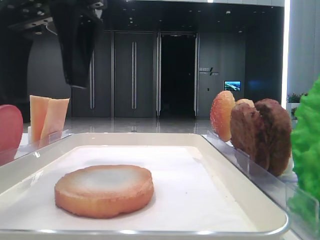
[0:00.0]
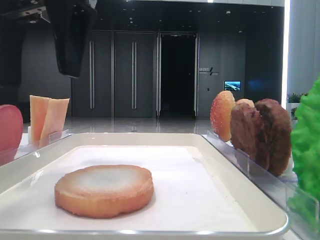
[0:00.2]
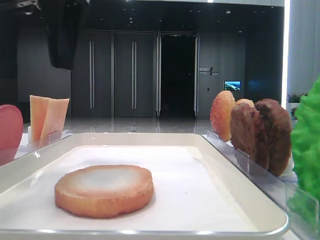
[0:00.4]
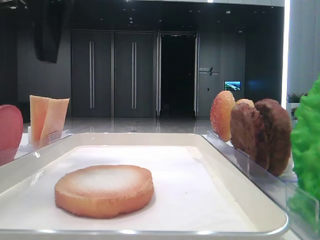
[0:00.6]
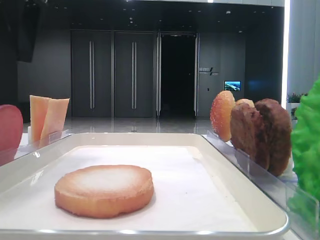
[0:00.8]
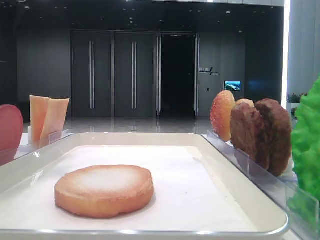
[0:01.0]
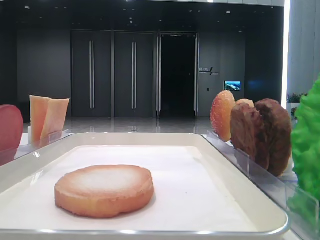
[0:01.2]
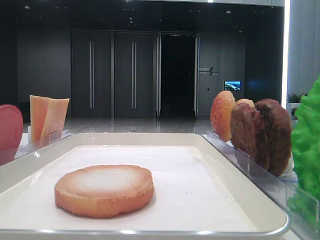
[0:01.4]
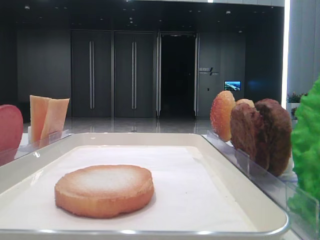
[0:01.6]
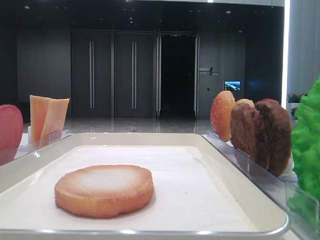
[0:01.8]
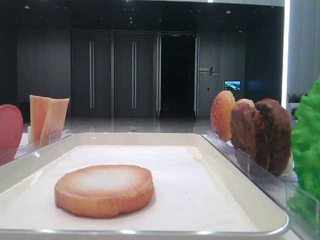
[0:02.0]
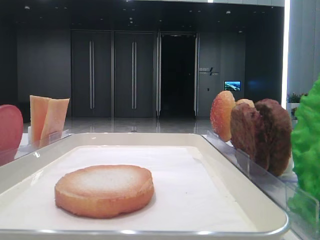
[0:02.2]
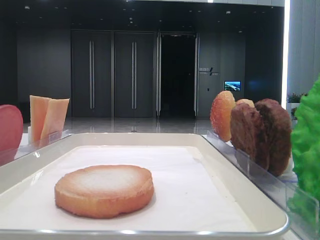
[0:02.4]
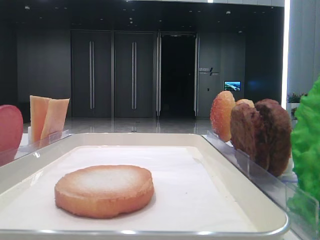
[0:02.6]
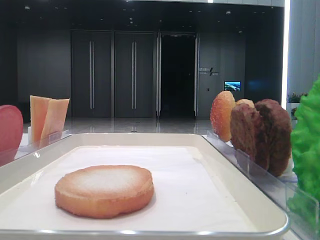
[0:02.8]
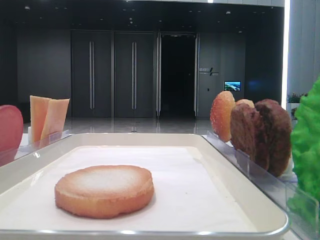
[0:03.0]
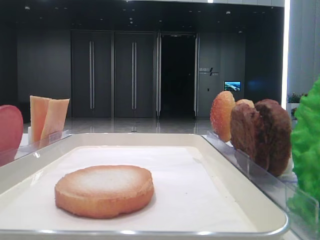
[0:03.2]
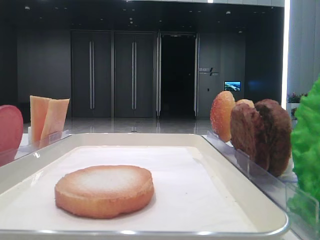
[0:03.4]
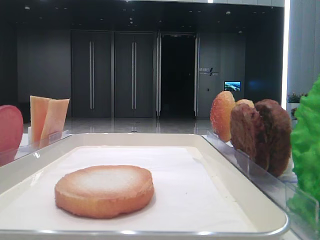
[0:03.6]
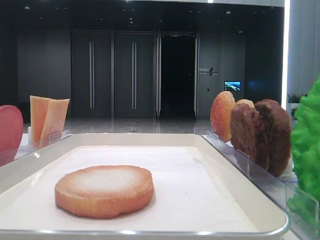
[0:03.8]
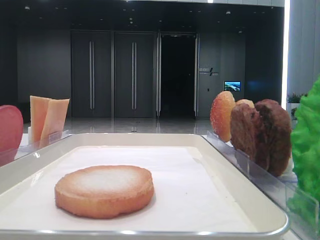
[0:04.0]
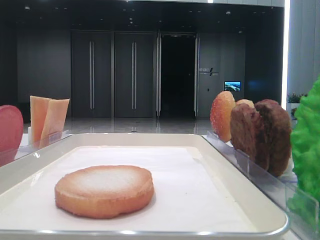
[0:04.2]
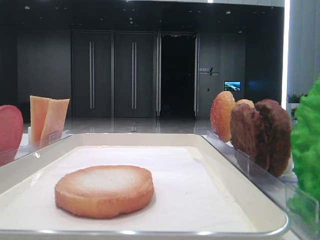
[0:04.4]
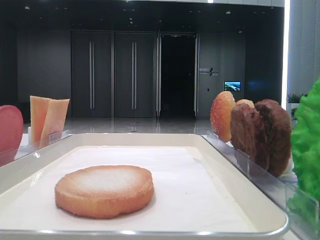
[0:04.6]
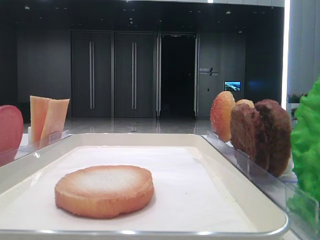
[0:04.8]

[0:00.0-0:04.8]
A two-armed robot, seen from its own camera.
0:00.0 to 0:01.6: The left gripper shifts roughly 20 cm to the left.

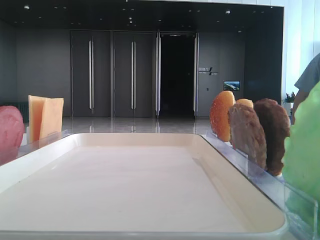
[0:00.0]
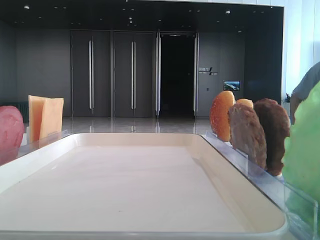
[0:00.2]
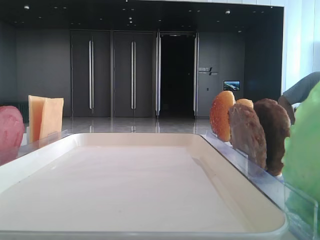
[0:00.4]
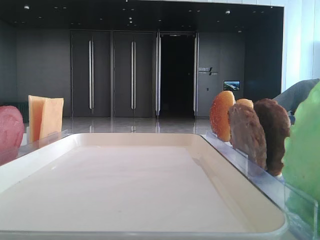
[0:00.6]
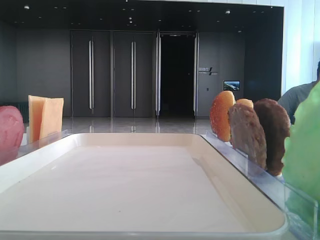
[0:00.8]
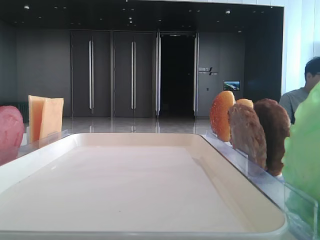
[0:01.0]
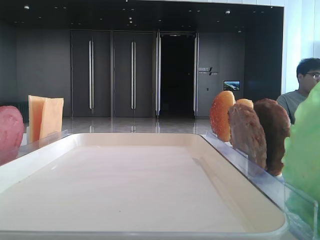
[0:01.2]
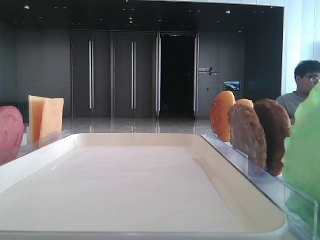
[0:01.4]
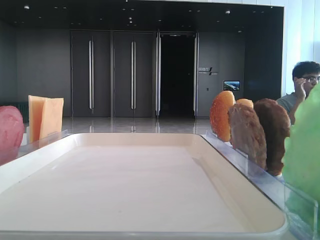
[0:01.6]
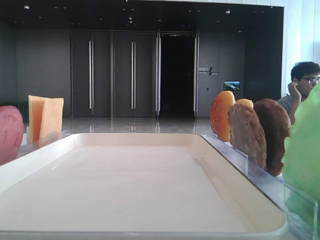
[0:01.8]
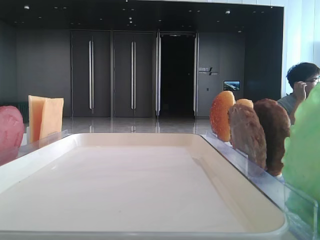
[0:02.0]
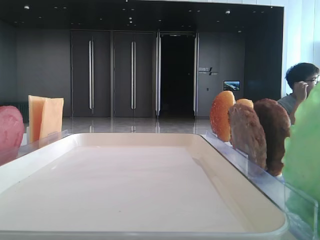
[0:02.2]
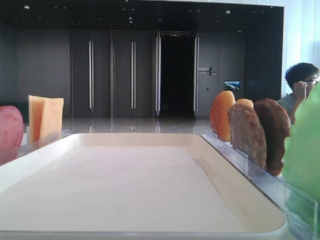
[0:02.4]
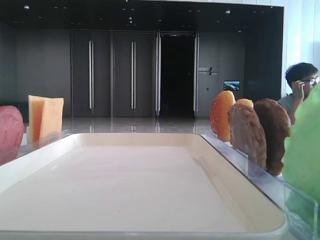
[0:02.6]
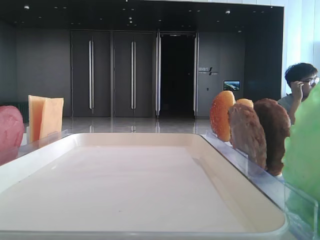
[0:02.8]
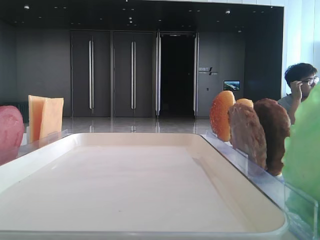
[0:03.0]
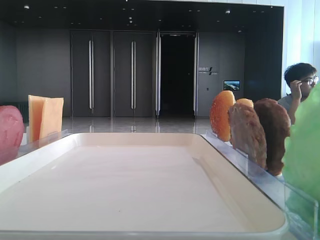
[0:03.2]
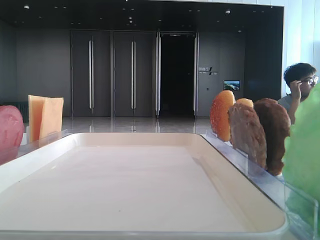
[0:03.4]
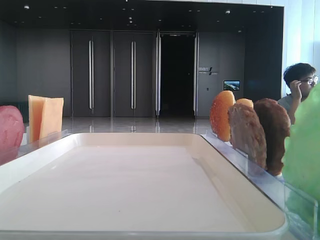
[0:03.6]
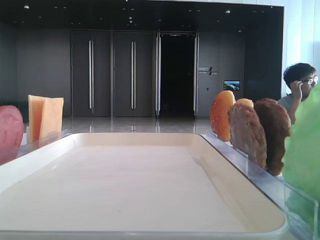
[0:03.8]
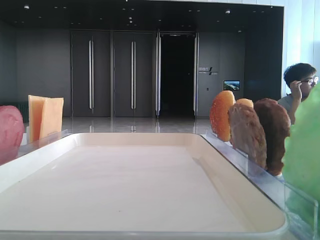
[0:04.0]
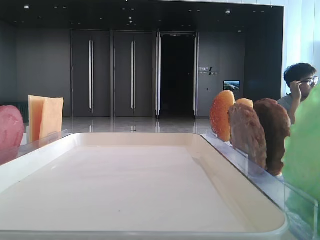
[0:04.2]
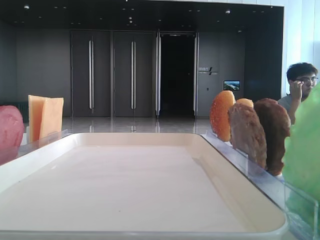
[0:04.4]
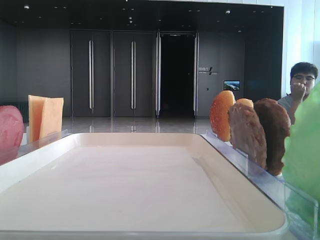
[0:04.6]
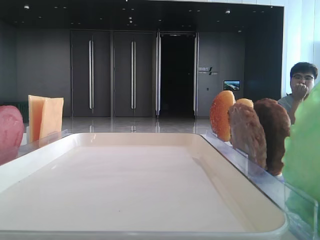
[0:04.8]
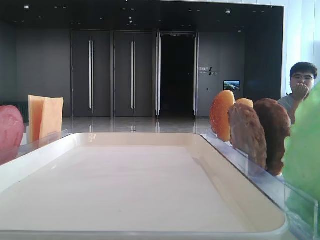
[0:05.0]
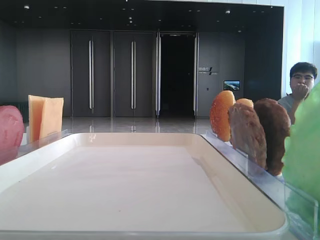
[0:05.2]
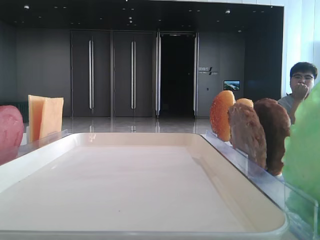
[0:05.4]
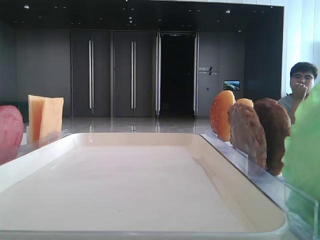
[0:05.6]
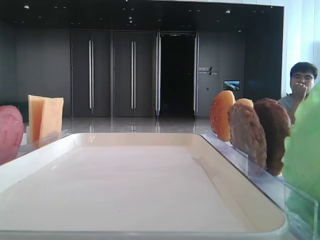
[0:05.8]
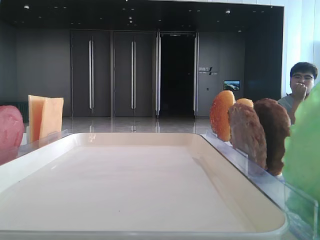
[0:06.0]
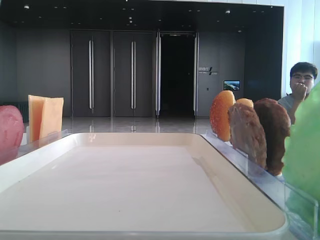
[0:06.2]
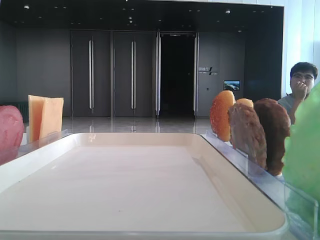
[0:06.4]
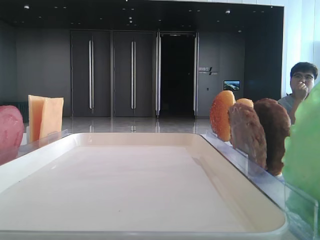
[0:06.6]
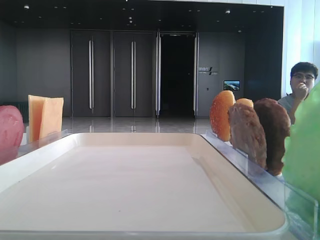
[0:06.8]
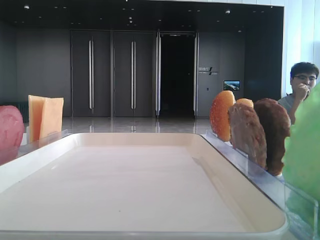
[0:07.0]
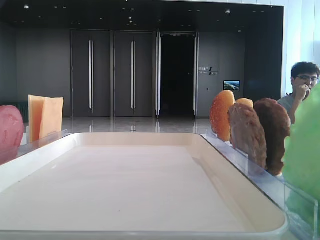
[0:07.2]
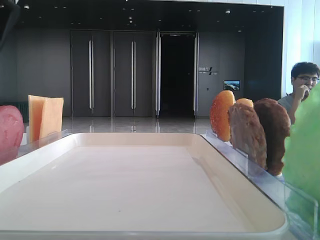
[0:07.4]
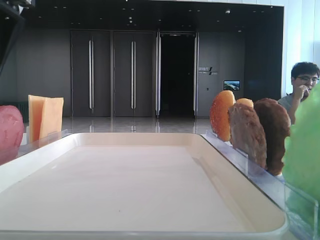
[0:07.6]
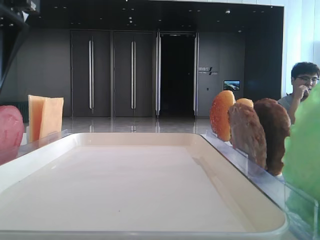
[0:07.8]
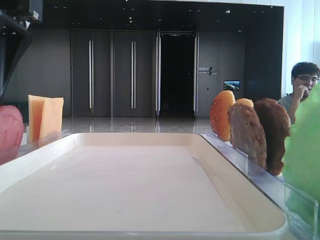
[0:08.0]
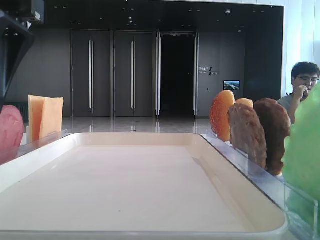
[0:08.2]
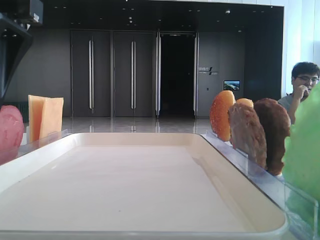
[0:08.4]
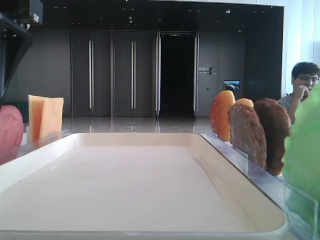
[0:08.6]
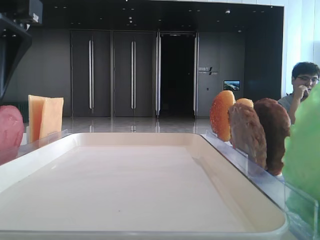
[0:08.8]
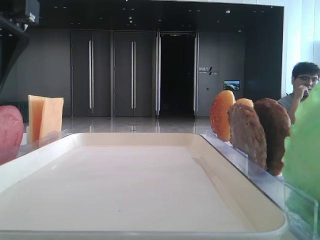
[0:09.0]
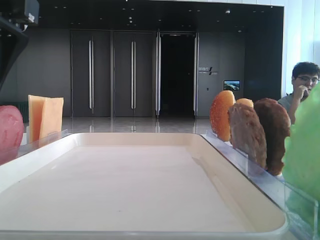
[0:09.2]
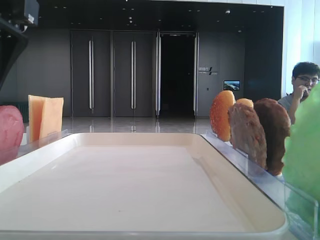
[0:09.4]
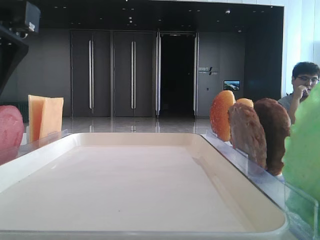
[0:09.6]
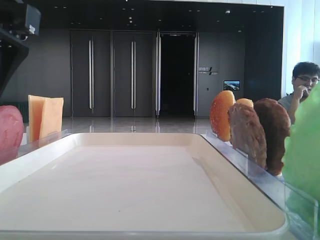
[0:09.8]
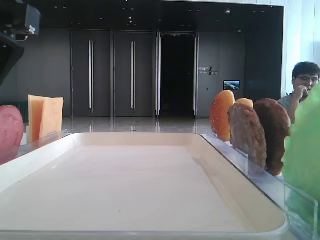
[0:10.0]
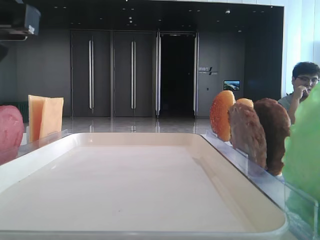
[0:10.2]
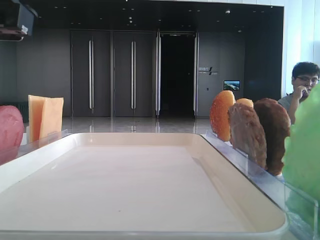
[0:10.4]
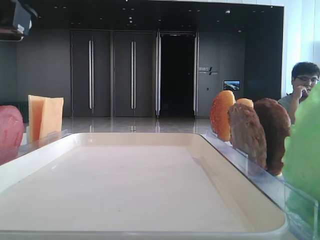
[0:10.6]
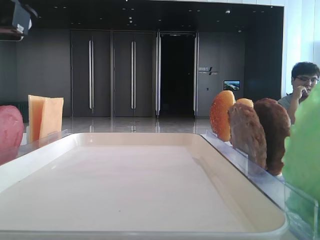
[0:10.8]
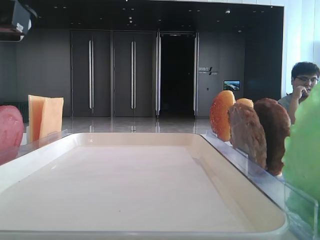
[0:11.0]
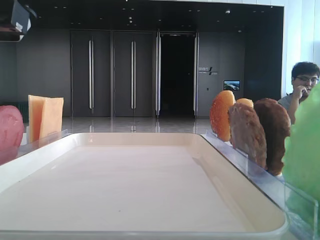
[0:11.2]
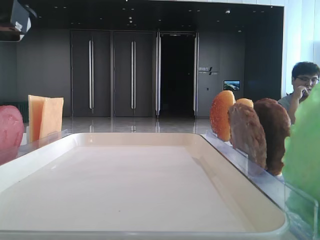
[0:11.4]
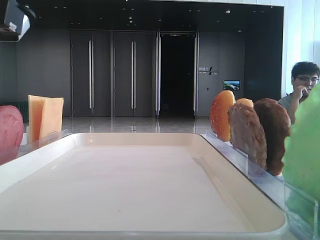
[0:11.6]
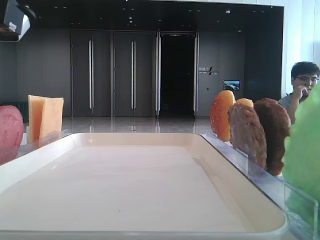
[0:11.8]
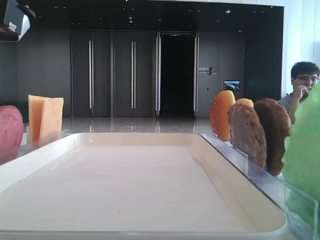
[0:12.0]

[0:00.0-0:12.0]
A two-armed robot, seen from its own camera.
Step, 0:00.0 to 0:12.0: Pick up the bottom bread with the left hand.
0:07.6 to 0:09.0: The grippers make only small movements.
0:09.0 to 0:10.4: The left gripper closes up.
0:10.4 to 0:12.0: Both grippers stay put.

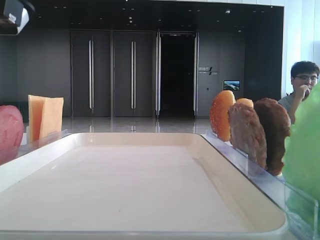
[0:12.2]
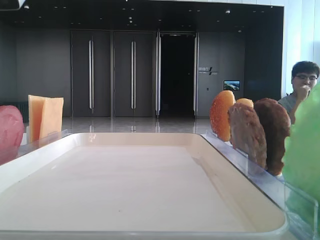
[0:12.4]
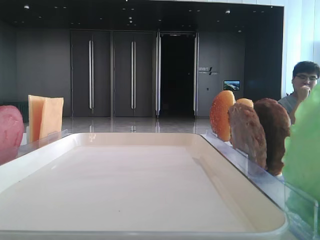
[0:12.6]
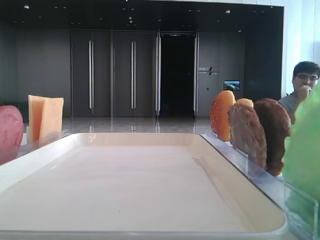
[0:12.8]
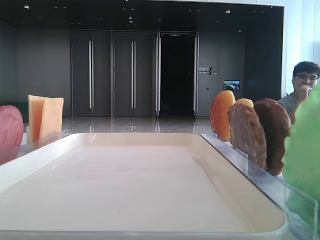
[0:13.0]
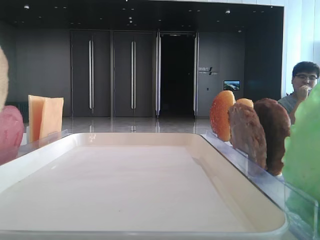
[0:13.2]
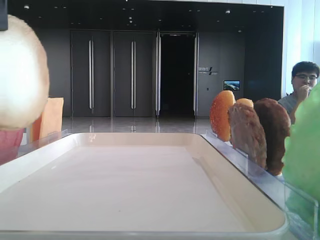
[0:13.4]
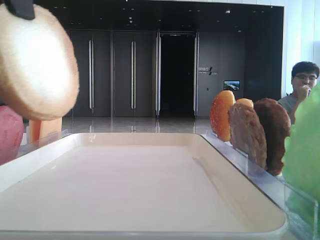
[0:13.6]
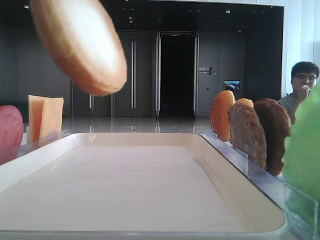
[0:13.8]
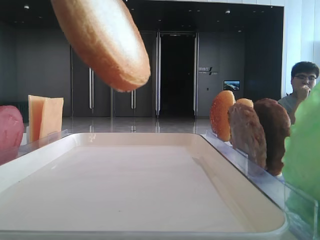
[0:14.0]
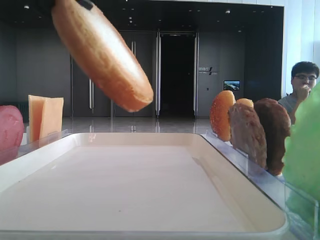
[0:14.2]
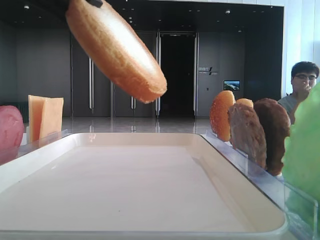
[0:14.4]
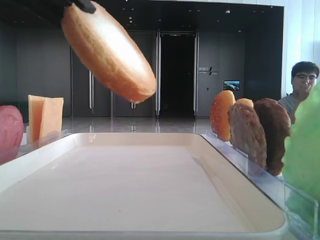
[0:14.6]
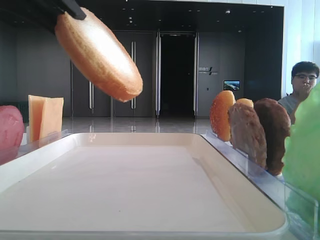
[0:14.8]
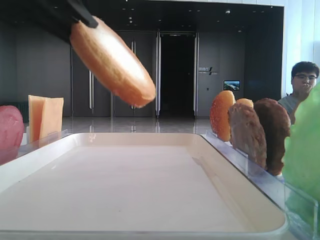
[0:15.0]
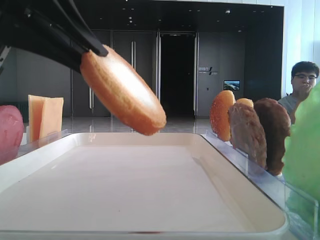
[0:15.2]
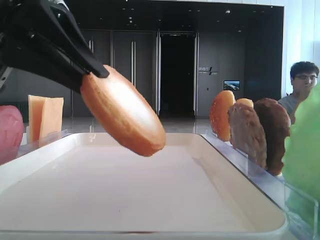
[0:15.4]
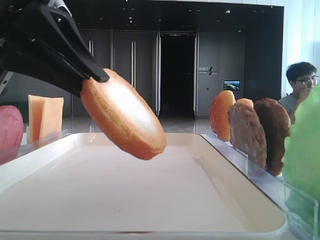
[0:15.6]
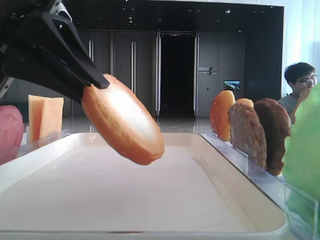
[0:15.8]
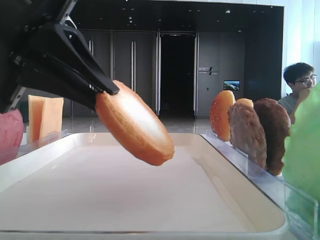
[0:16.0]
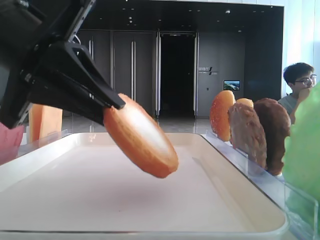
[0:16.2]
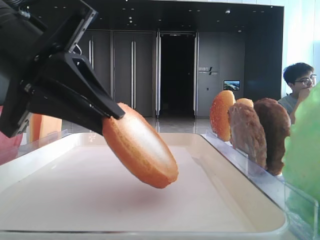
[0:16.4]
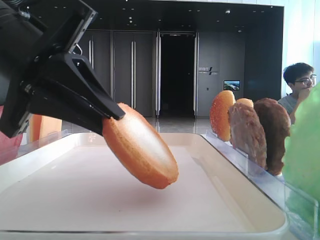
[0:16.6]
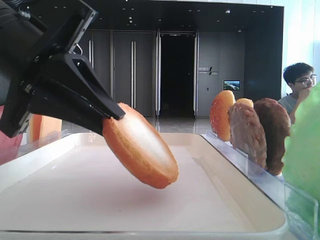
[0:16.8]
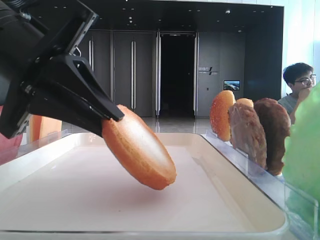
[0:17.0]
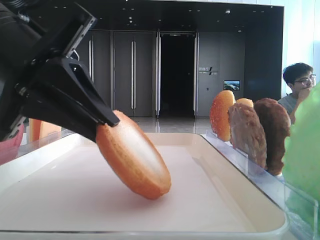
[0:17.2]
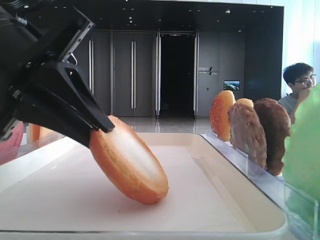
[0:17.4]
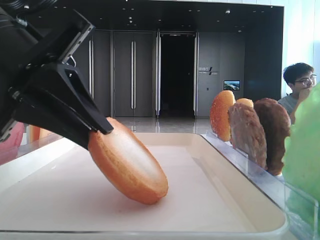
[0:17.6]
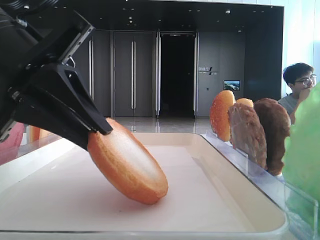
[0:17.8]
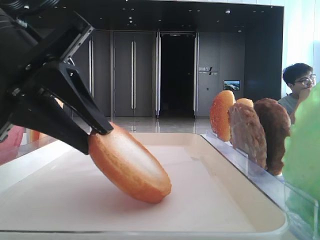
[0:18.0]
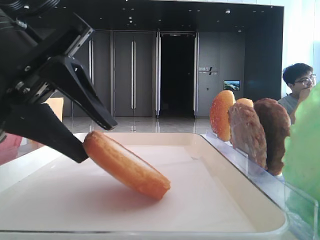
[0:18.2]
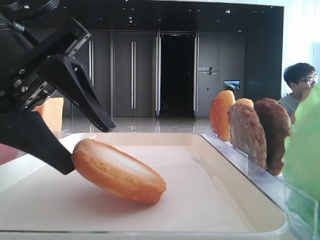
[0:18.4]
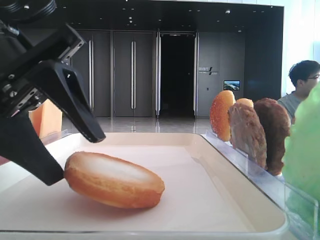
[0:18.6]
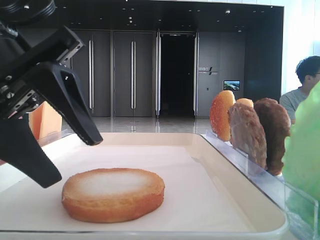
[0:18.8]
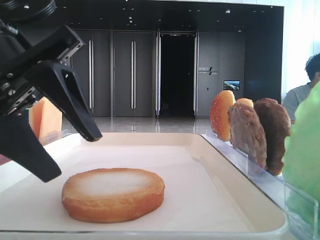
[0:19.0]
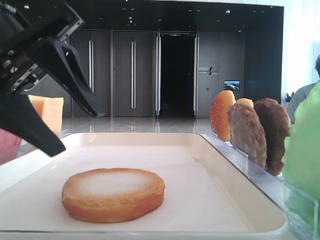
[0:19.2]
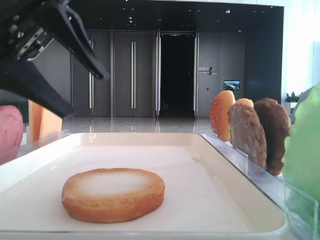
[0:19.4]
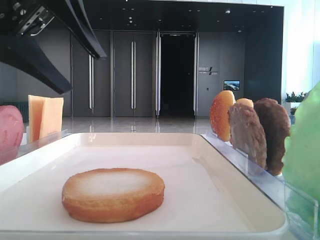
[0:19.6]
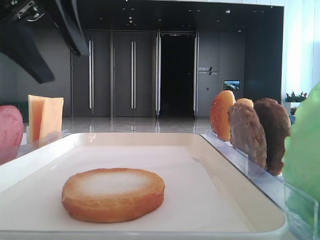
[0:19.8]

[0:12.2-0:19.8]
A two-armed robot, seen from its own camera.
Step, 0:12.2 to 0:18.6: Place the bread on the tray with the left hand.
0:12.2 to 0:13.8: The left gripper heads upward, covering approximately 5 cm.
0:13.8 to 0:15.2: The left gripper moves downward, approximately 10 cm.
0:15.2 to 0:16.8: The left gripper is displaced downward by some 5 cm.
0:16.8 to 0:18.2: The left gripper opens up.
0:18.2 to 0:19.8: The left gripper travels upward by roughly 10 cm.
